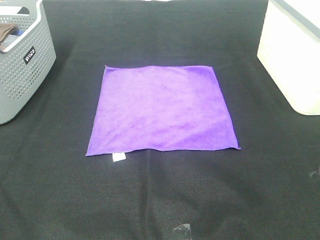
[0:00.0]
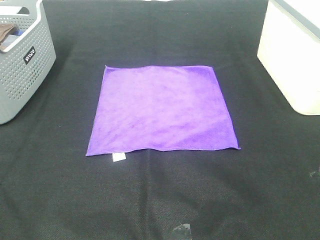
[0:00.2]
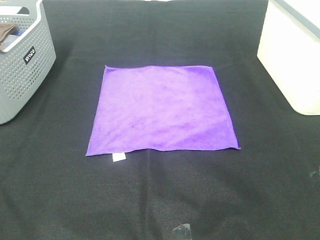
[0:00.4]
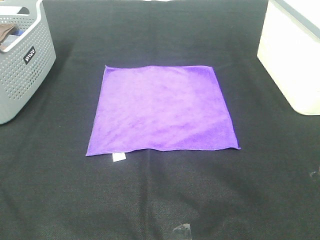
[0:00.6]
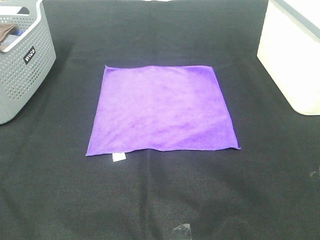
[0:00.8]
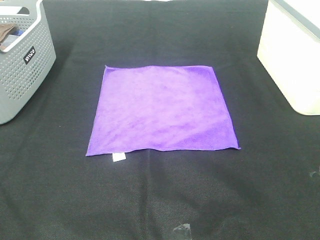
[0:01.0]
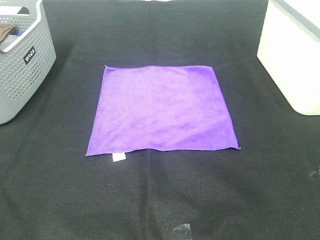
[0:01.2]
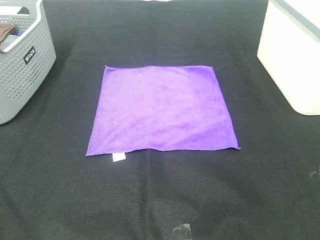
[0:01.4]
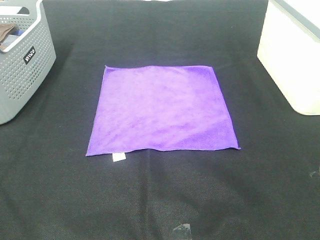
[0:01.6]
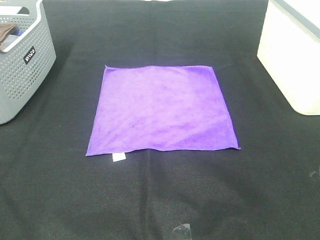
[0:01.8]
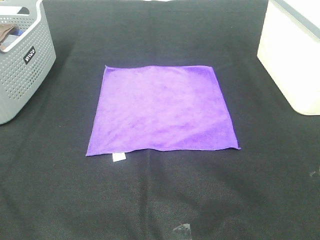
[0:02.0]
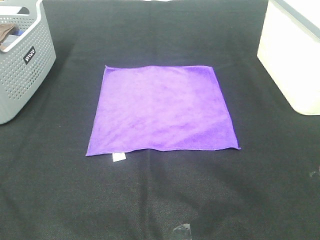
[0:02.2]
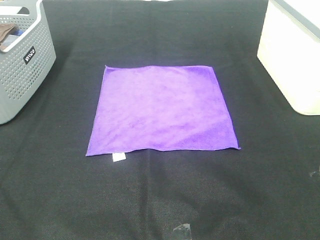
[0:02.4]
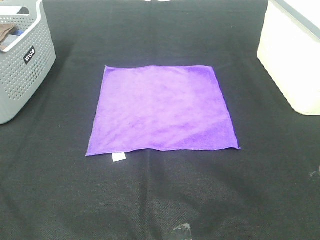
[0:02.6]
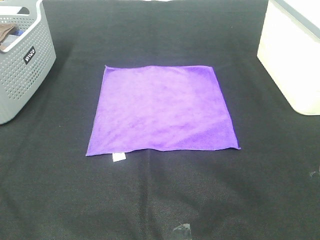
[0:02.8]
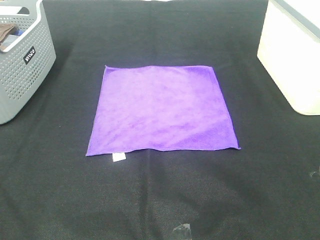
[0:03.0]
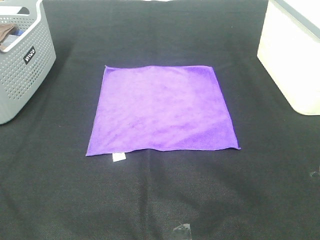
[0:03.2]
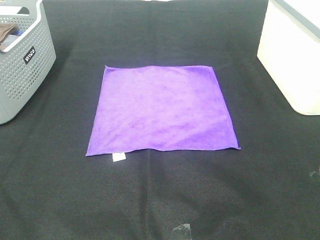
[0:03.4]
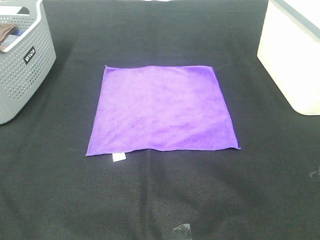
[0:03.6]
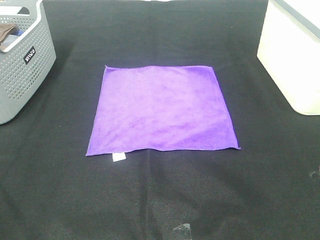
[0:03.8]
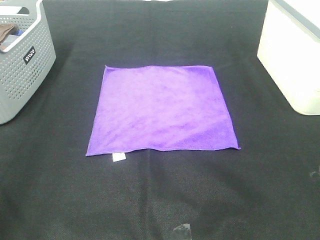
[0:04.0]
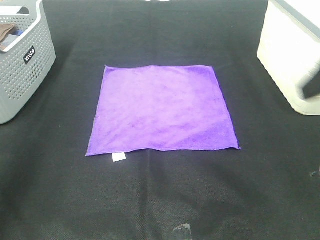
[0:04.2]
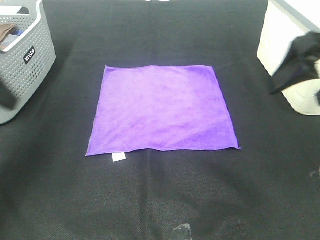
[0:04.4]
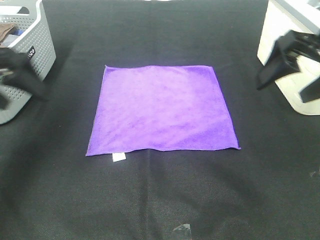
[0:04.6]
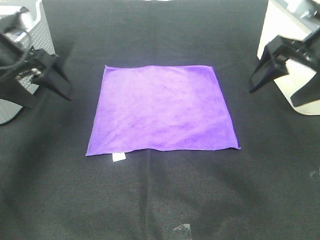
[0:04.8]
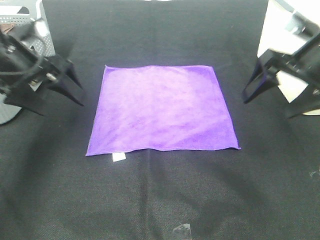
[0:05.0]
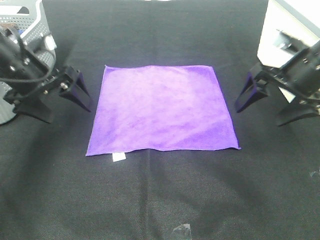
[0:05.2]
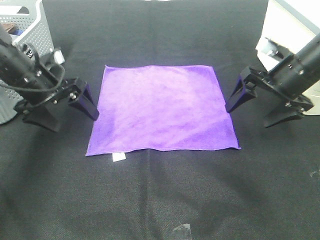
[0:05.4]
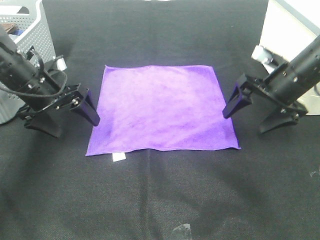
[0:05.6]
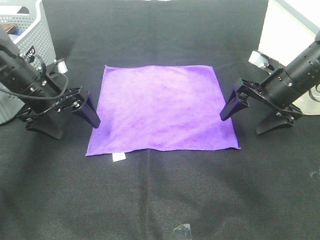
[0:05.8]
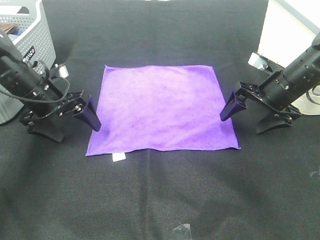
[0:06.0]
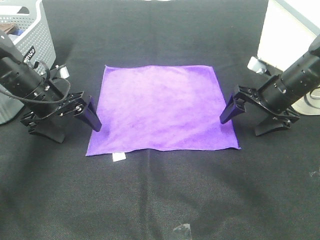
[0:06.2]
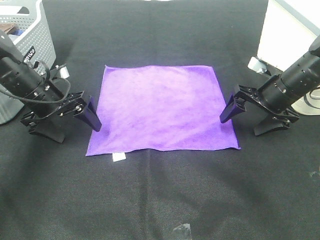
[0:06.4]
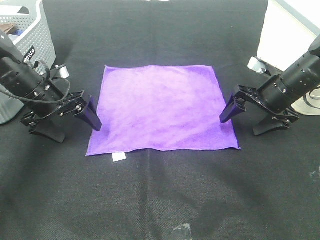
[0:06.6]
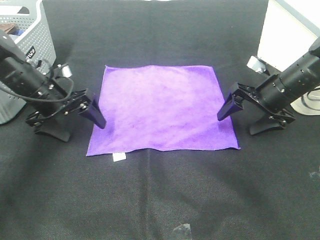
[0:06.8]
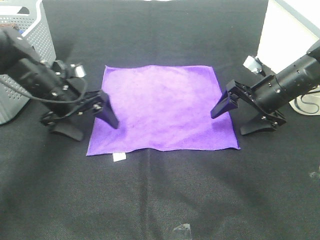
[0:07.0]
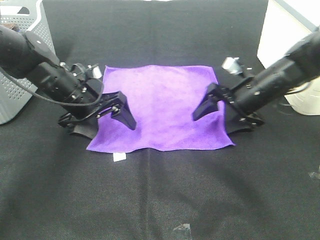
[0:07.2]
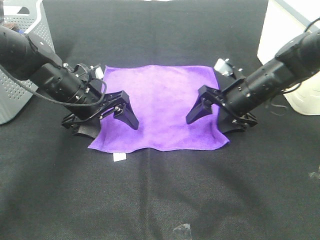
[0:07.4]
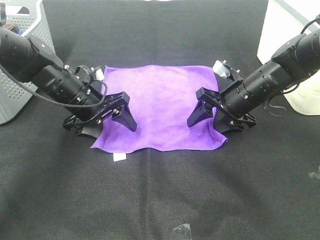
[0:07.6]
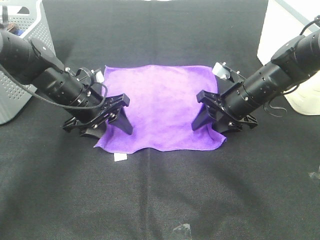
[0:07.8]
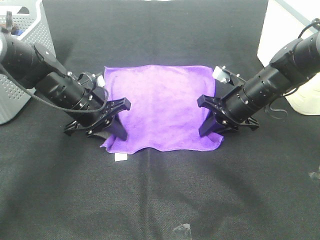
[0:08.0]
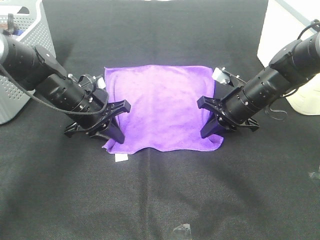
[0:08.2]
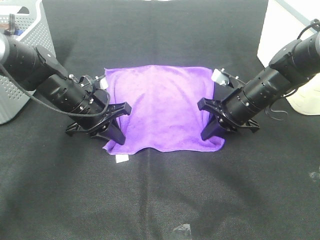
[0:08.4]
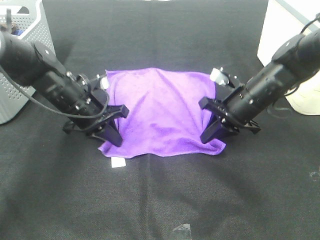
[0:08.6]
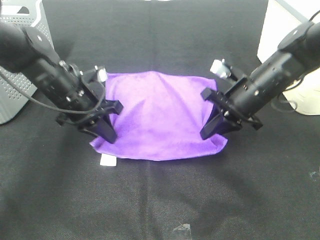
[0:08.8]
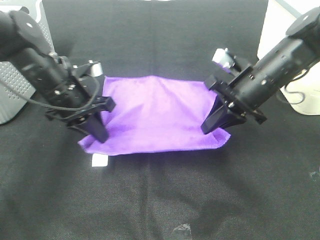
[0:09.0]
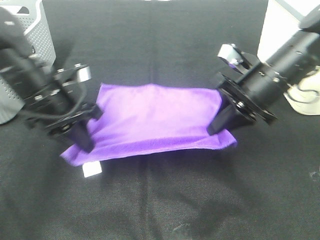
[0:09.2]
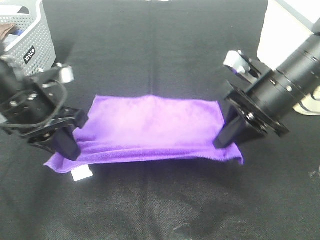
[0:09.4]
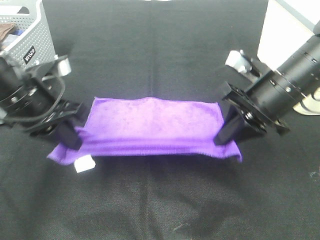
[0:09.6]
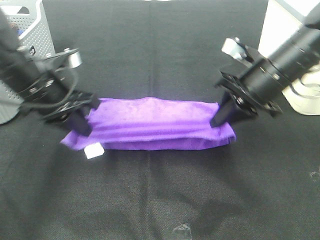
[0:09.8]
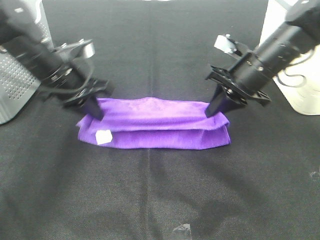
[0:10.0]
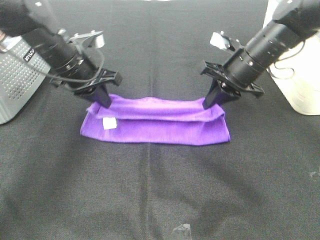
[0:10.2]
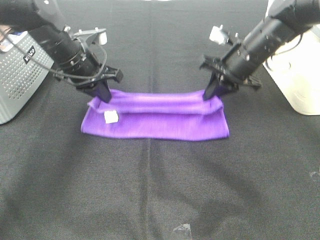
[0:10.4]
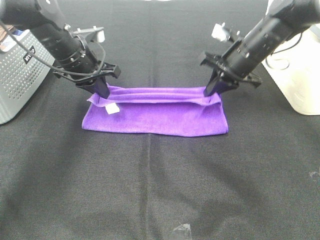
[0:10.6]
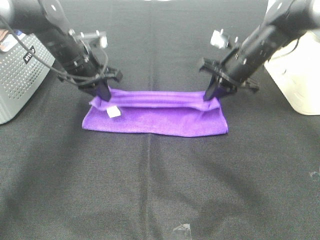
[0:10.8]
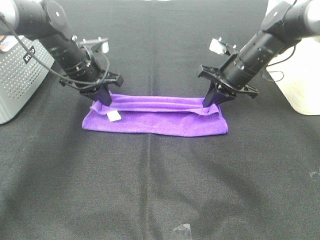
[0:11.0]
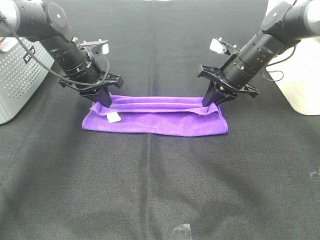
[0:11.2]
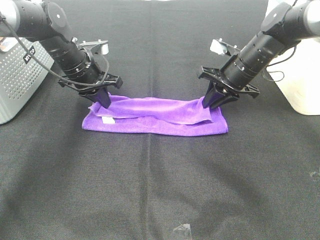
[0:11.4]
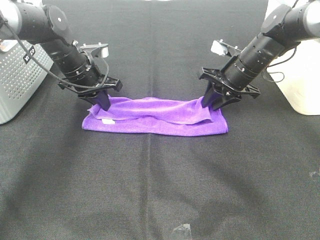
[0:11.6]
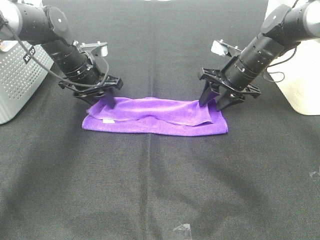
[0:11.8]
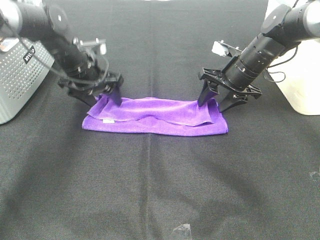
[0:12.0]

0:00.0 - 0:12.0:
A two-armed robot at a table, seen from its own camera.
Task of the whole recording: Fold towels.
Step, 0:00.0 - 0:08.2: Left hand: grab the bottom left corner of purple towel.
Step, 0:00.0 - 0:08.2: Right hand: grab the bottom right corner of purple towel.
Step, 0:08.4 - 0:11.4: Left hand: fold the purple towel up.
Step, 0:08.4 - 0:11.4: Right hand: fold the purple towel up.
0:00.0 - 0:03.0: Both grippers stay about where they are.
0:03.0 - 0:04.4: Both grippers move forward, some 25 cm.
0:04.4 - 0:06.0: The grippers both shift downward and forward by roughly 20 cm.
0:06.0 - 0:07.6: The left gripper shifts roughly 5 cm to the right, while the right gripper is displaced to the left by roughly 5 cm.
0:07.6 - 0:09.0: Both grippers move upward, some 5 cm. The right gripper closes. Meanwhile the left gripper closes its fingers.
0:09.0 - 0:10.4: The two grippers go roughly 10 cm forward.
0:10.4 - 0:12.0: The right gripper opens; the left gripper opens.

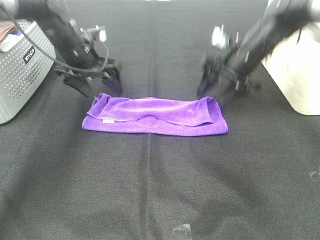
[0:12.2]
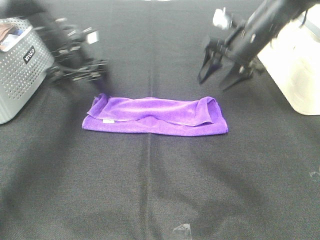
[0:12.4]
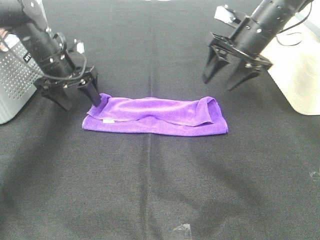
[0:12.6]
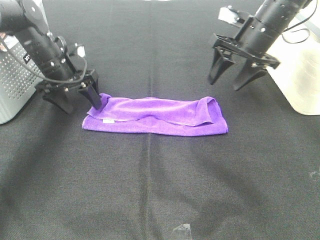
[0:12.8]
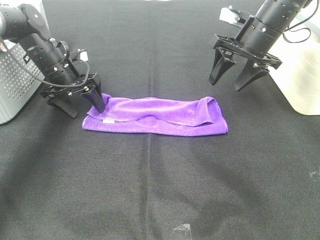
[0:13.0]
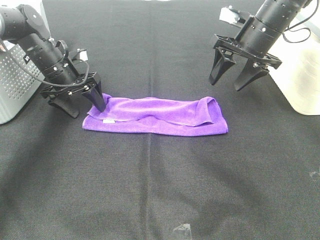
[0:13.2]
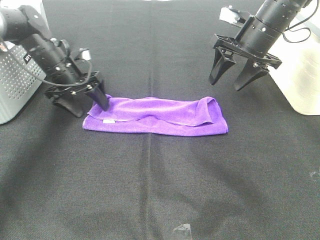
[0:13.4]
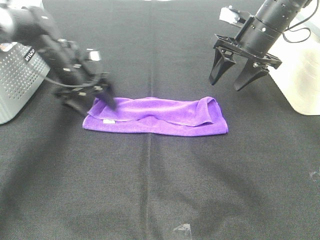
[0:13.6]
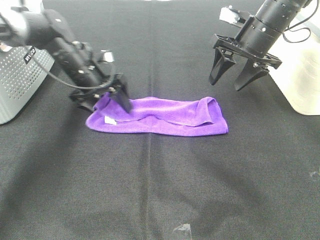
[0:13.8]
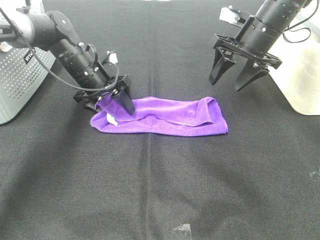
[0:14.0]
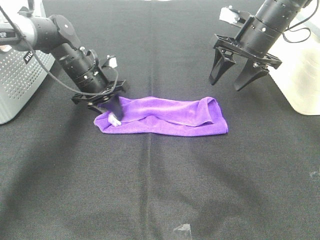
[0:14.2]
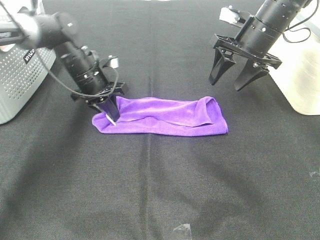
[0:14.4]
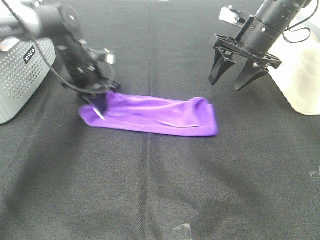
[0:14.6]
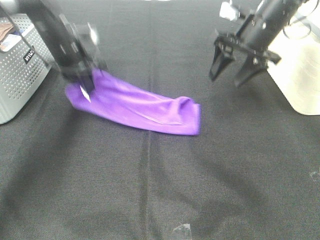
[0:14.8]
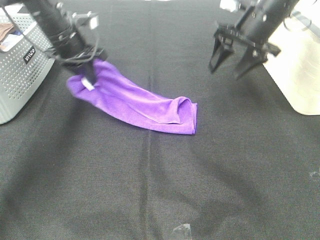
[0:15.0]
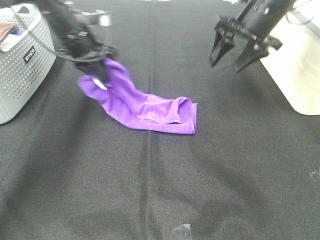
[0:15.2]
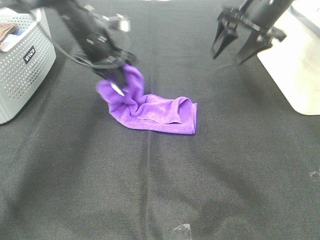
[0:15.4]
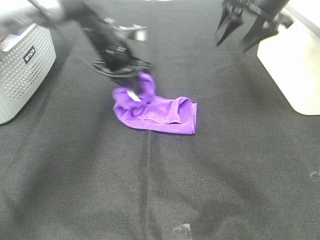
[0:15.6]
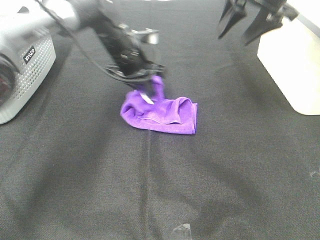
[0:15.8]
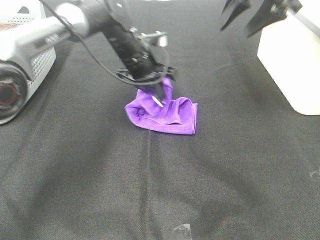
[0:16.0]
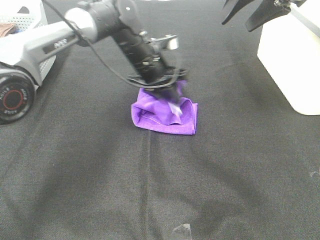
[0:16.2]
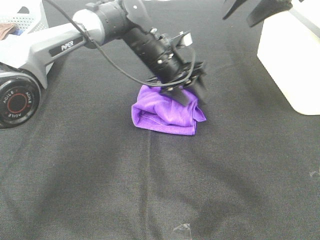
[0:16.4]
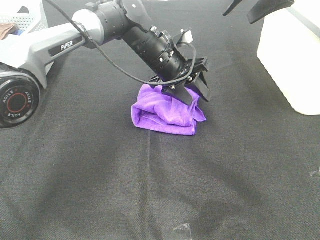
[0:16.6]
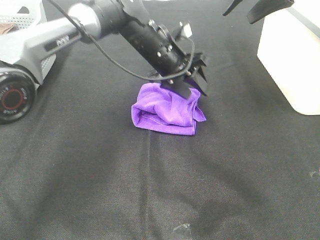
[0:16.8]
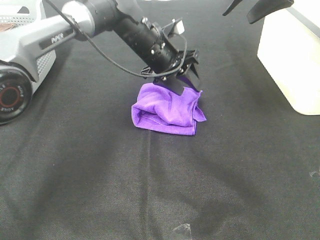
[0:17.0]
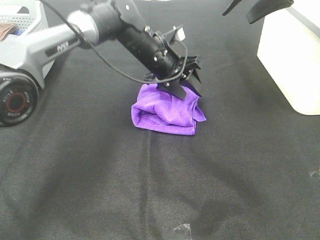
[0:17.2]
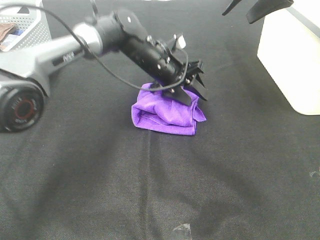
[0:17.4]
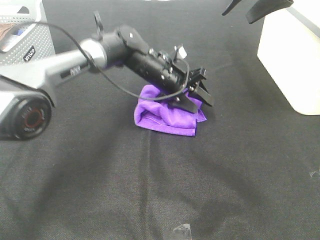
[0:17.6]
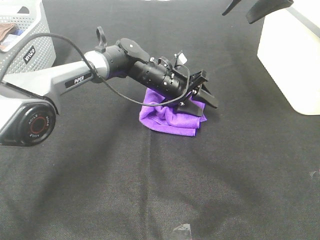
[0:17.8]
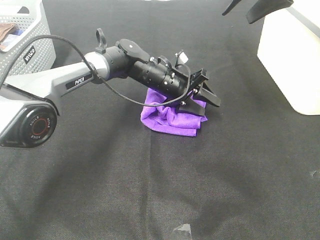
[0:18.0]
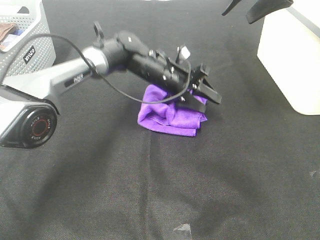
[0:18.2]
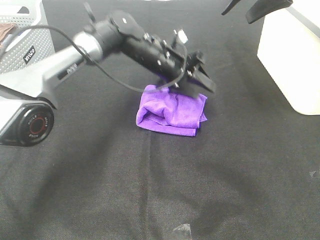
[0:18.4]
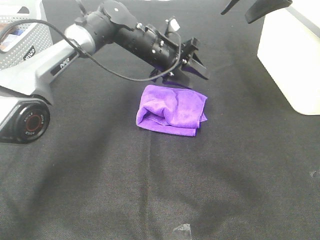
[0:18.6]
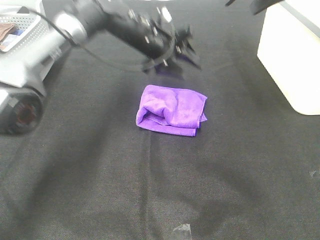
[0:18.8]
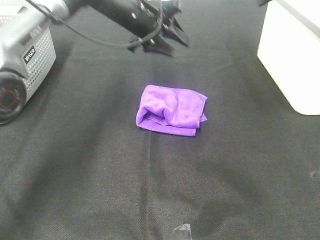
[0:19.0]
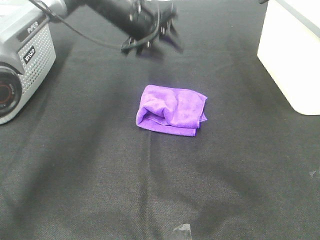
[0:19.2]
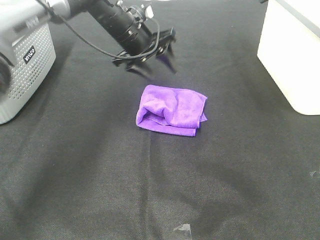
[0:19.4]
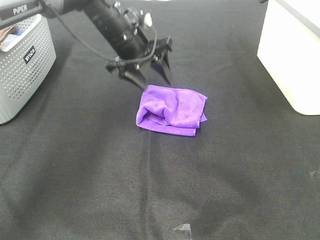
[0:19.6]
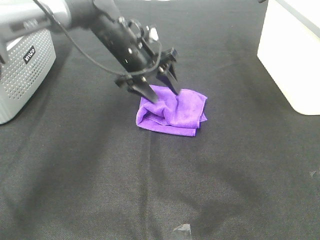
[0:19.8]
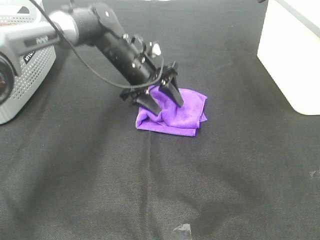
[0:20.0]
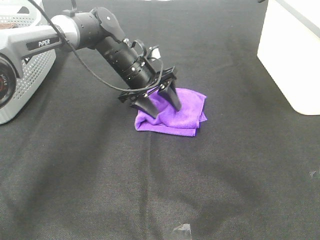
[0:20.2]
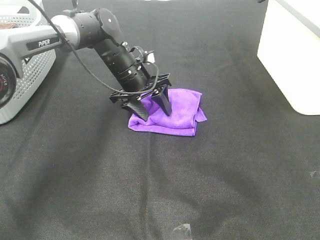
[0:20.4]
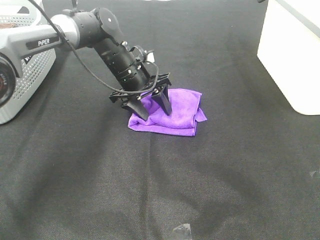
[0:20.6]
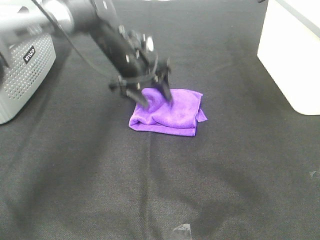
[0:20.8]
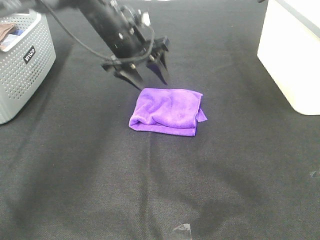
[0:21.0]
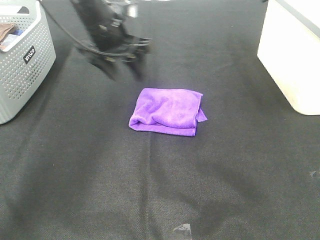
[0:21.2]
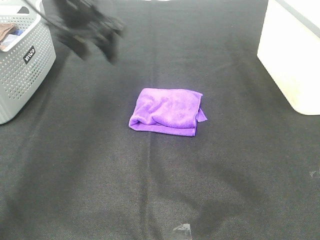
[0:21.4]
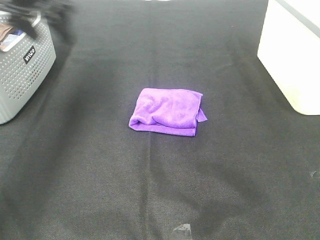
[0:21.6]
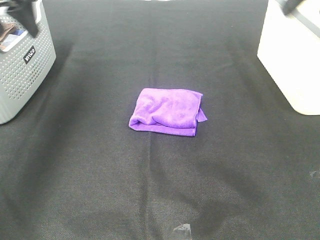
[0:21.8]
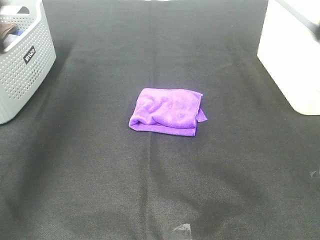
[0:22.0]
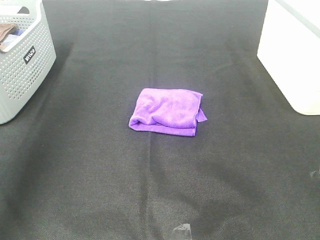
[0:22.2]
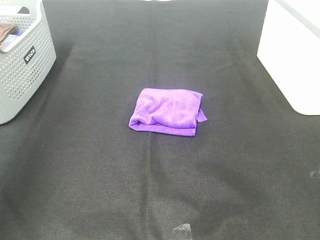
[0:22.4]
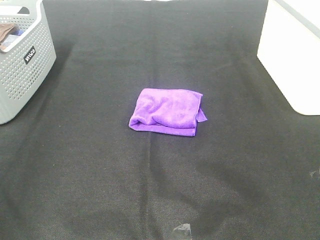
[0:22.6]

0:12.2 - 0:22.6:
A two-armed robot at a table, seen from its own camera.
Task of the whole recording: Fold towels.
Step, 0:12.2 - 0:16.0: Left hand: fold the purple towel from left to right.
0:12.2 - 0:13.6: The left gripper shifts roughly 5 cm downward.
0:13.6 - 0:15.2: The left gripper is displaced upward by about 10 cm, and closes its fingers.
0:15.2 - 0:16.6: The right gripper heads upward, covering some 10 cm. The left gripper is displaced to the right by about 15 cm, and opens up.
0:18.2 - 0:19.6: The left gripper goes approximately 10 cm upward and to the left.
0:19.6 - 0:21.2: The left gripper shifts by approximately 5 cm.
0:21.2 - 0:22.6: The left gripper is displaced backward and to the left by roughly 40 cm. Meanwhile the right gripper shifts roughly 35 cm backward.
